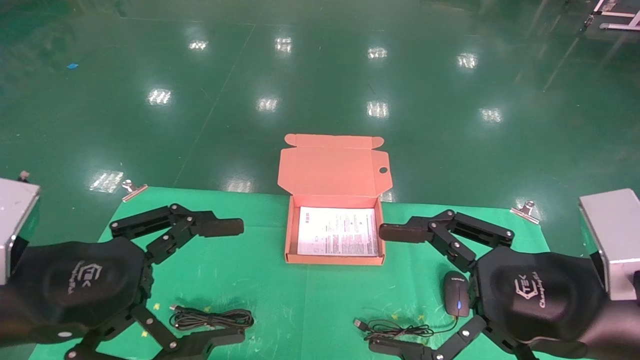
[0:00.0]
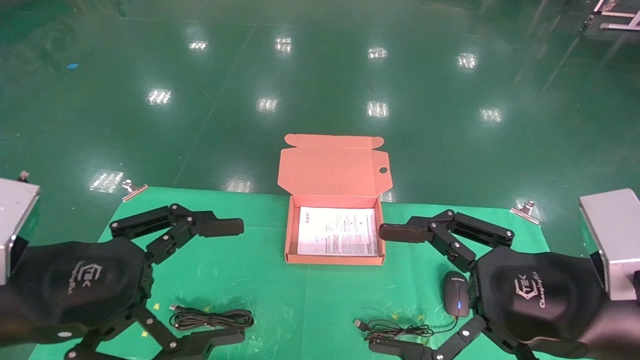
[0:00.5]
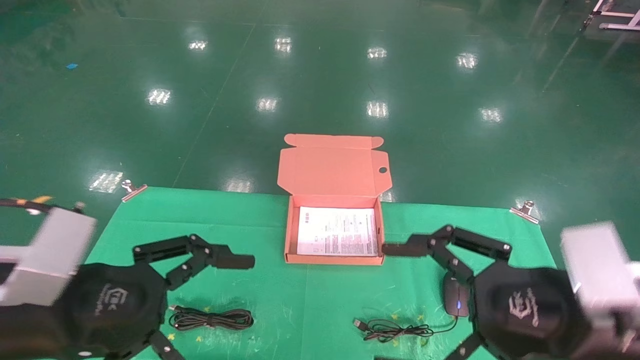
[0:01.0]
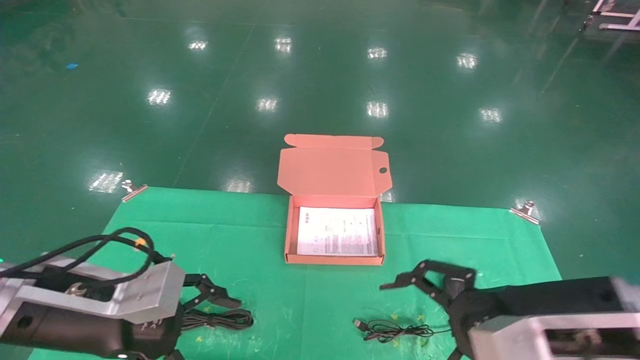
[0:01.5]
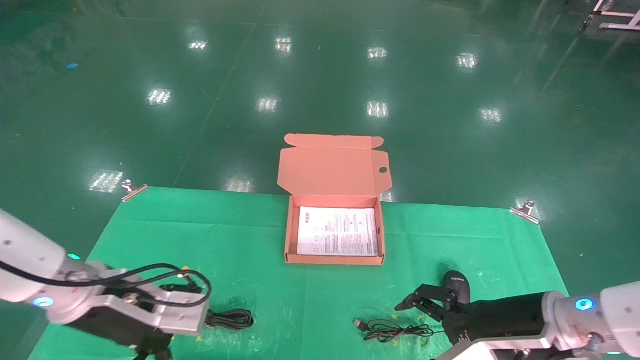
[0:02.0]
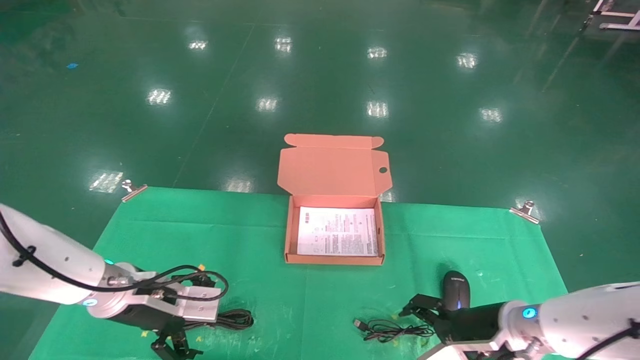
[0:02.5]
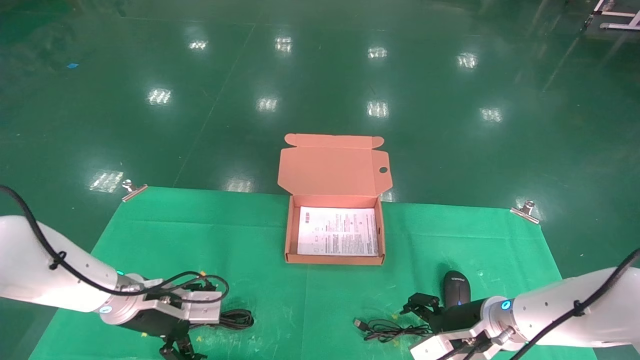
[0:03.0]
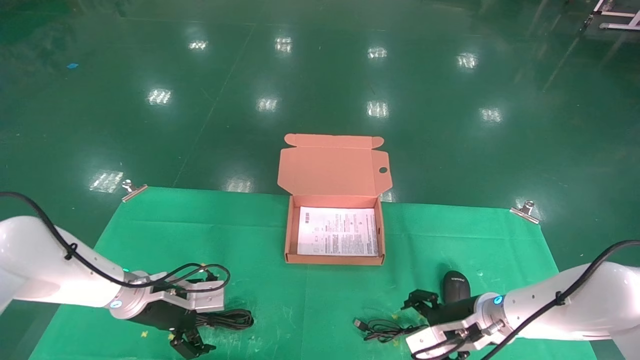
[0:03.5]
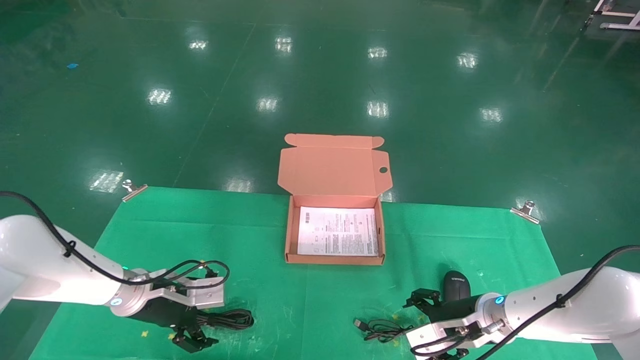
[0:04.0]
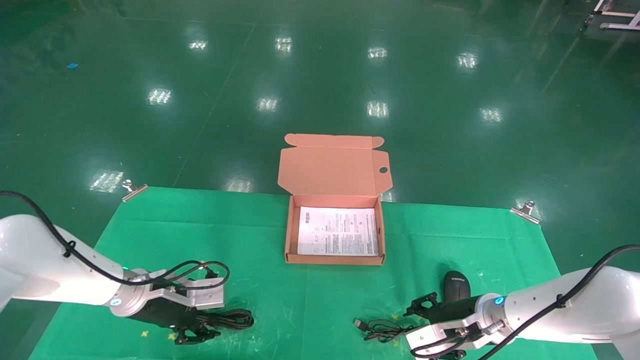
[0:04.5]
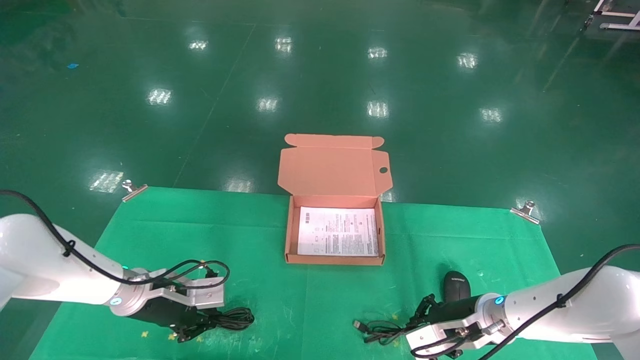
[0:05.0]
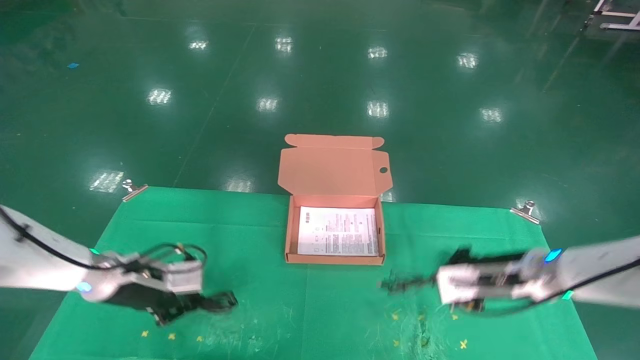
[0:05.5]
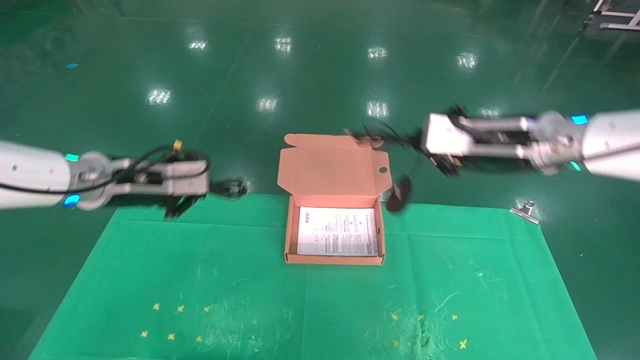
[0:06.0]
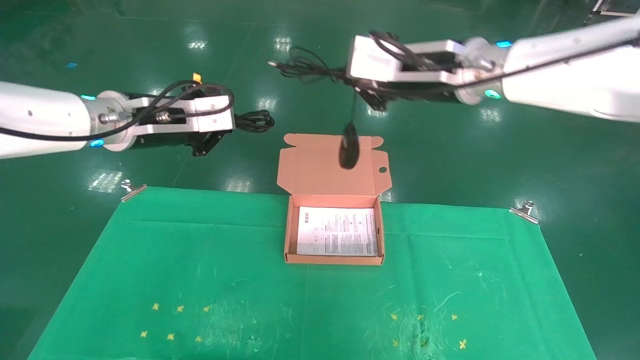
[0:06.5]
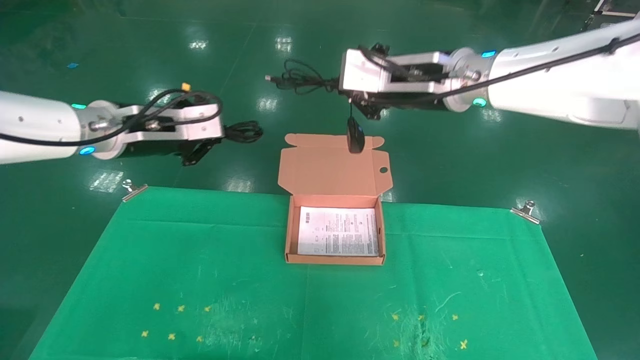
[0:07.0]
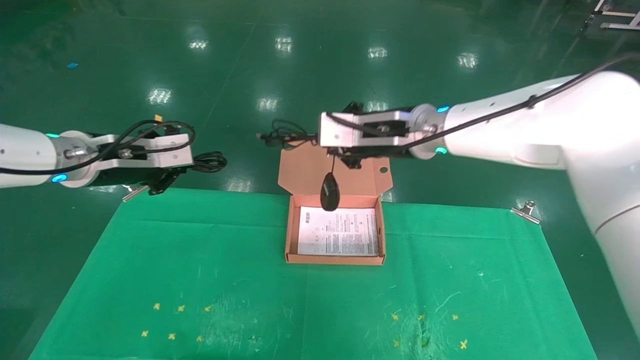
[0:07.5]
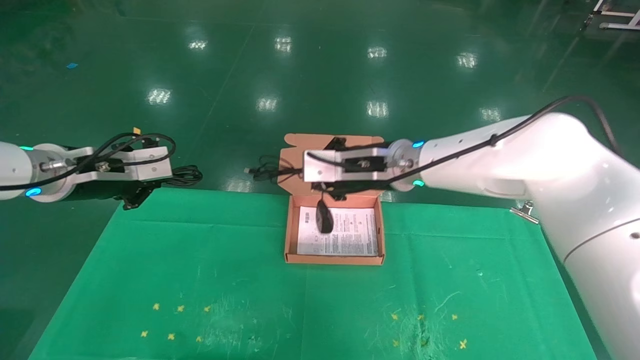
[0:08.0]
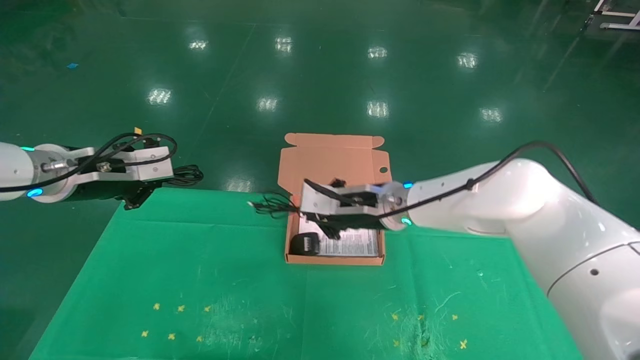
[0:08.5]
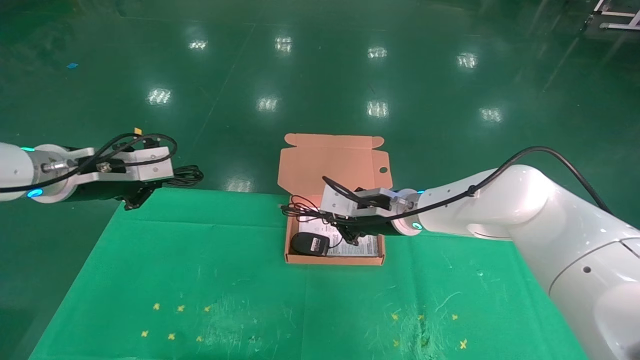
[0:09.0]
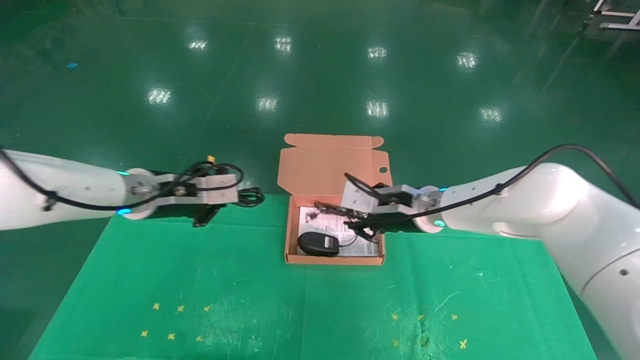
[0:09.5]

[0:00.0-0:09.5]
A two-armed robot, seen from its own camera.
Task of the whole recording: grasp data cable left put into box grasp mouse right put into box.
Step, 0:01.0 to 0:05.5: Grab and pick up both the mouse and power cord from the accessory packaging area at the same time.
0:00.0 to 0:02.0: Both grippers travel together forward and downward, about 15 cm.
0:02.0 to 0:04.0: The two grippers go approximately 15 cm forward and downward.
0:04.0 to 0:05.5: The right gripper travels upward by about 10 cm, and closes; the left gripper shifts roughly 5 cm upward, and closes.
0:05.5 to 0:07.5: The left gripper is displaced upward by approximately 15 cm, while the right gripper travels upward and to the left by approximately 25 cm.
0:07.5 to 0:09.5: The left gripper heads to the right and downward, covering some 10 cm. Meanwhile the right gripper moves downward, approximately 10 cm.

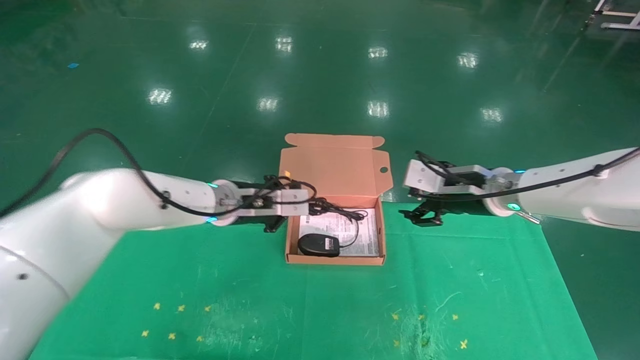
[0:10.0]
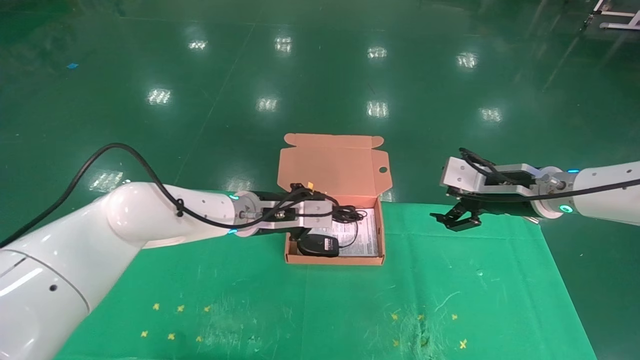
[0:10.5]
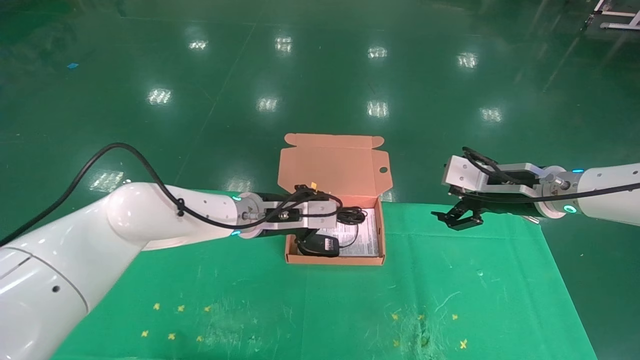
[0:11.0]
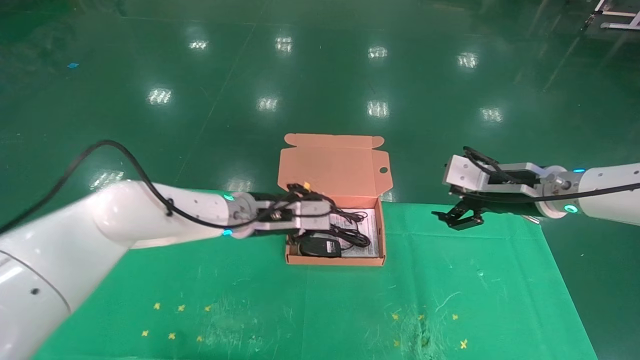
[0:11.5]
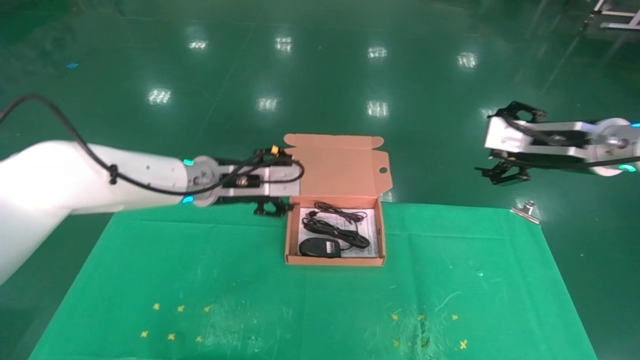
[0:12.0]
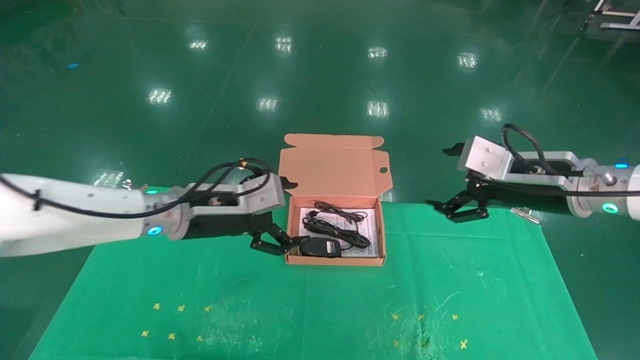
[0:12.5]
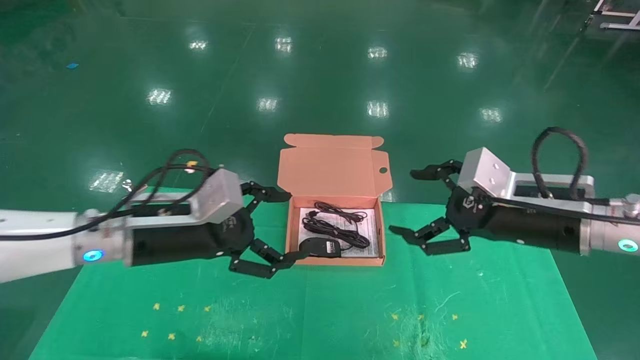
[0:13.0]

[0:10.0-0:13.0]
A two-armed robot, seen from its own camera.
Task of the whole recording: grasp data cable left put into box grasp mouse right put into box.
0:10.0 to 0:11.5: The right gripper moves to the right, some 5 cm, and opens its fingers.
0:11.5 to 0:13.0: The left gripper heads backward and to the left, covering about 15 cm, and opens its fingers, while the right gripper goes approximately 10 cm backward.

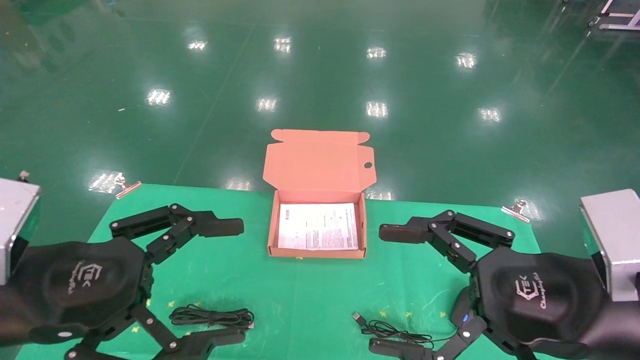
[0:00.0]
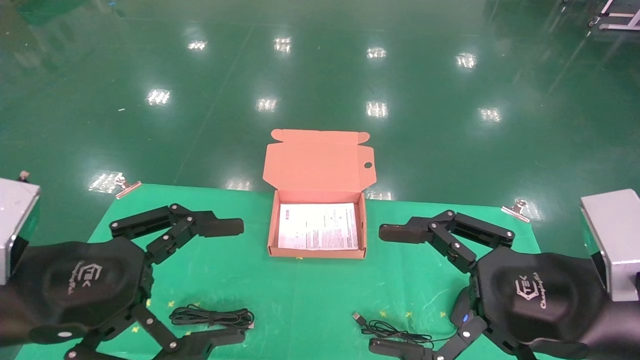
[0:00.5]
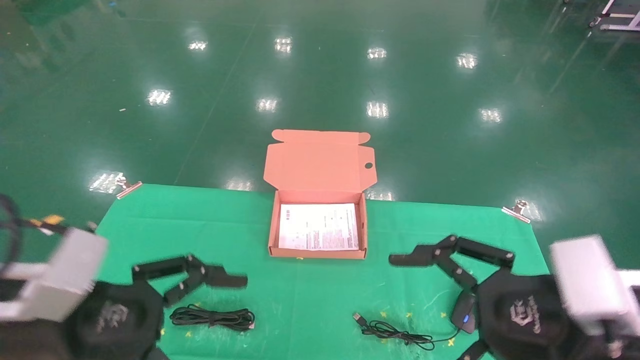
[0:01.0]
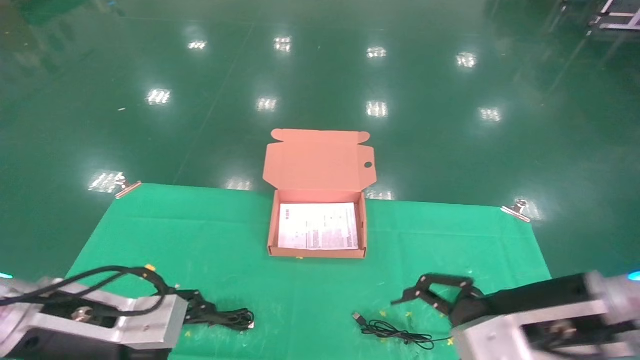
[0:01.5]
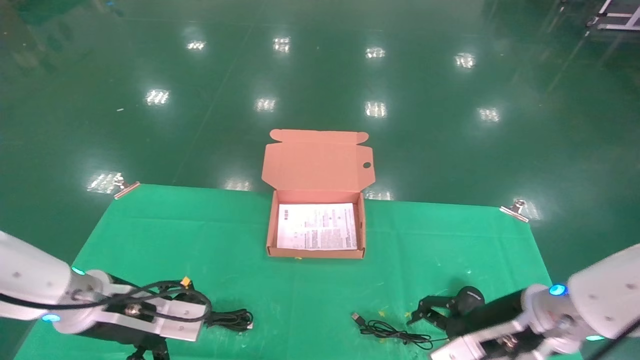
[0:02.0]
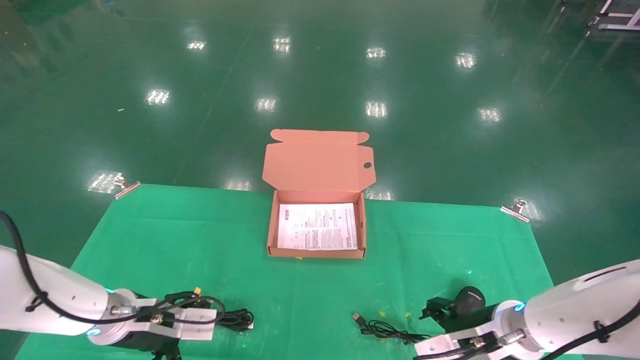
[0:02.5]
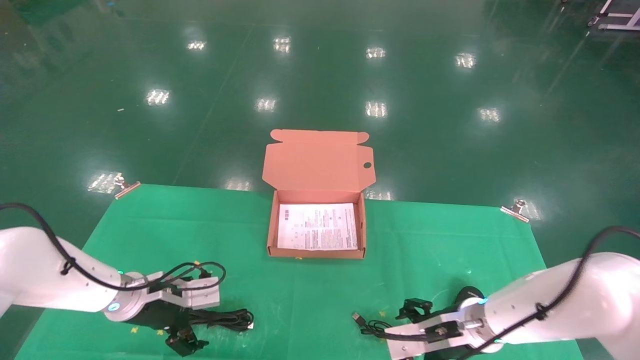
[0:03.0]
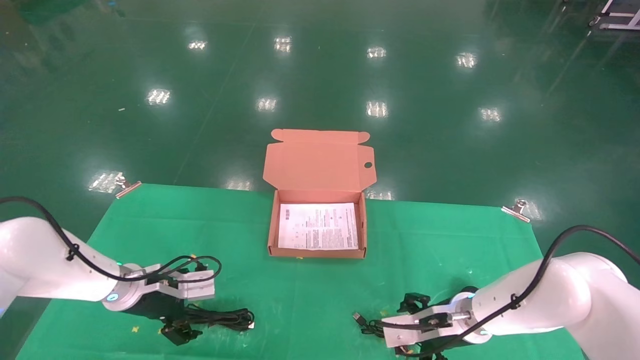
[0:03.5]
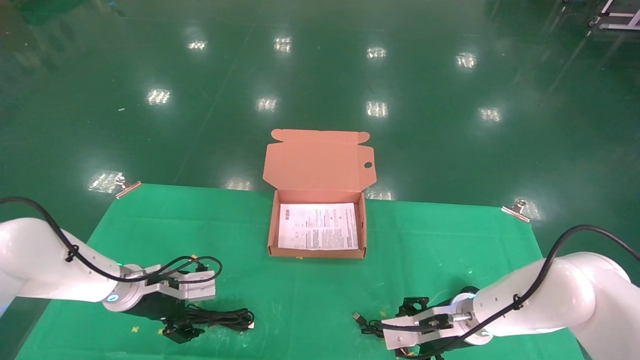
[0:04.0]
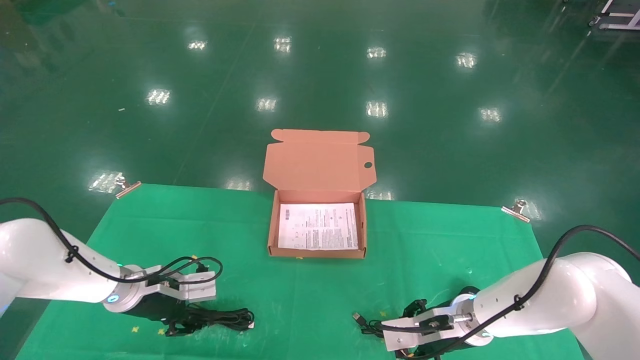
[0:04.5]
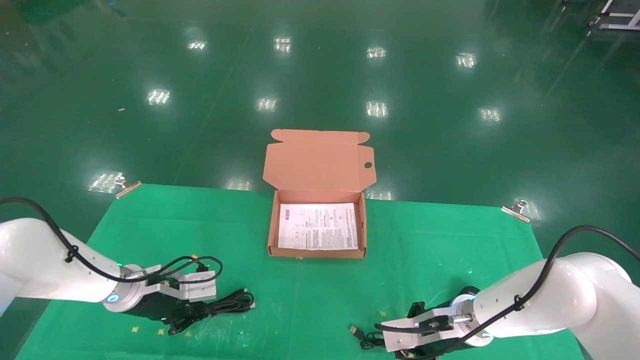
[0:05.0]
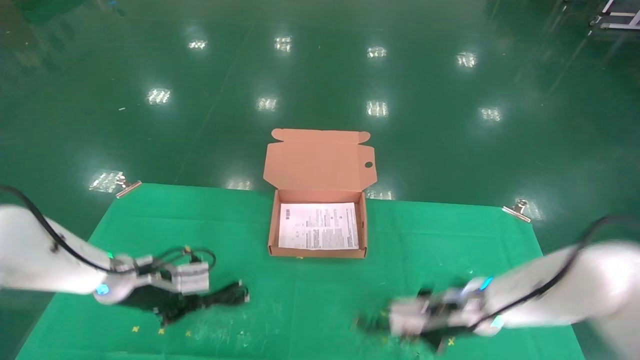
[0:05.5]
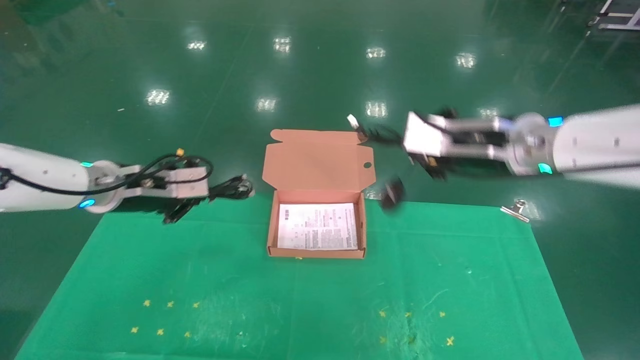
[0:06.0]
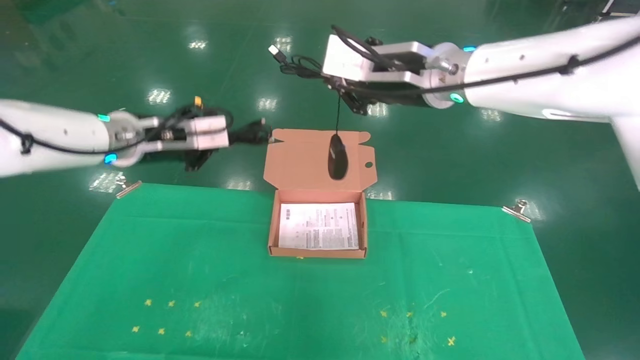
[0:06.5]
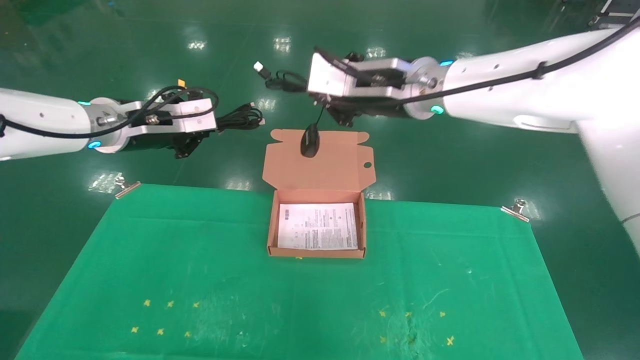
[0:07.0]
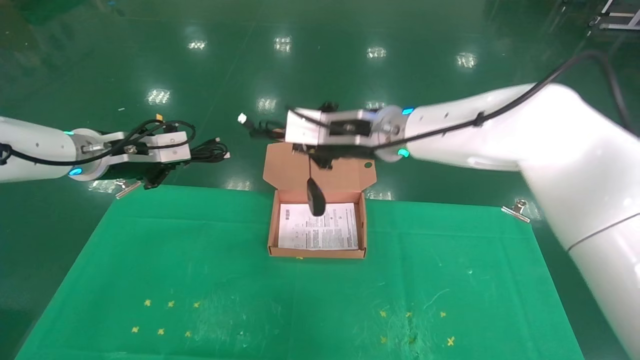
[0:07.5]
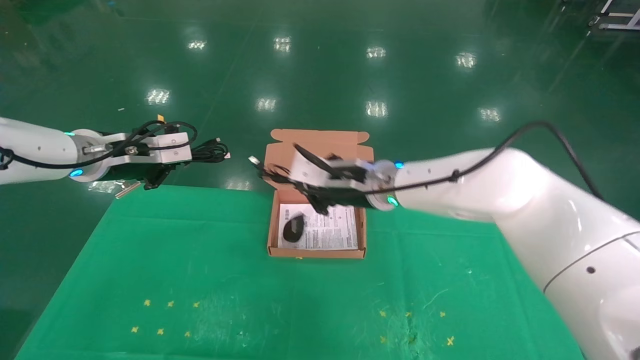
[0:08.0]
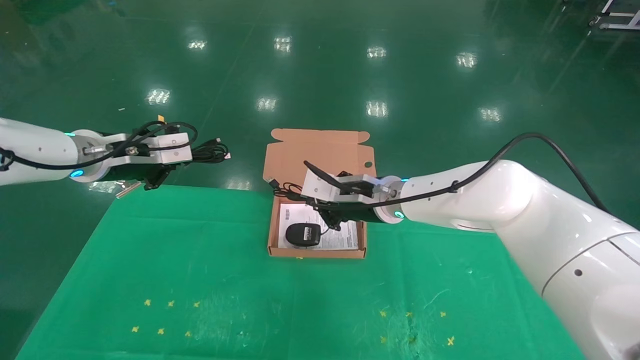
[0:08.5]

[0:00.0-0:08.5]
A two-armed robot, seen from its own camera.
Task of the whole recording: grasp data cable left put into box grasp mouse right put into box.
Step, 0:01.5 to 0:06.0: Grab and pick up both the mouse and power cord from the accessory packaging area at the same time.
0:00.0 to 0:02.0: Both grippers move forward and downward, roughly 15 cm.
0:02.0 to 0:04.0: The grippers both shift forward and downward by approximately 10 cm.
0:04.0 to 0:06.5: The grippers both shift upward by approximately 30 cm. The left gripper closes. The right gripper closes its fingers.
0:06.5 to 0:08.5: The right gripper shifts about 15 cm downward, while the left gripper ends up approximately 5 cm from where it was.
